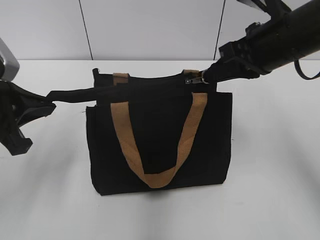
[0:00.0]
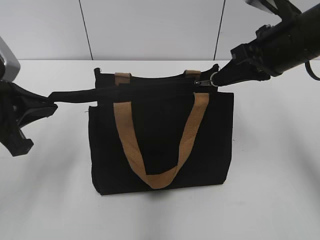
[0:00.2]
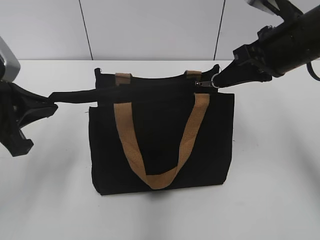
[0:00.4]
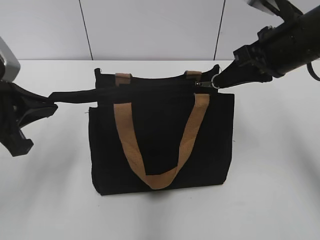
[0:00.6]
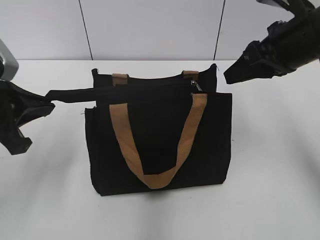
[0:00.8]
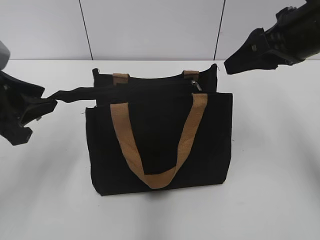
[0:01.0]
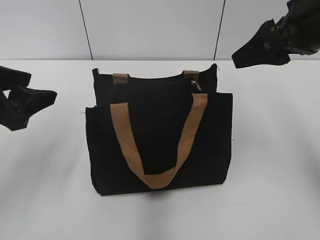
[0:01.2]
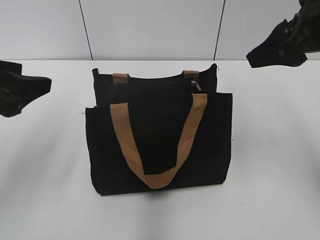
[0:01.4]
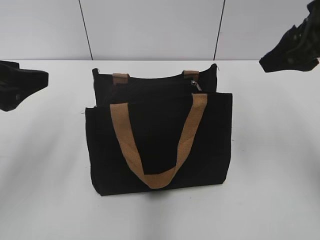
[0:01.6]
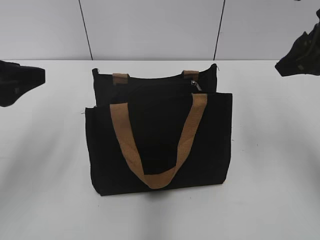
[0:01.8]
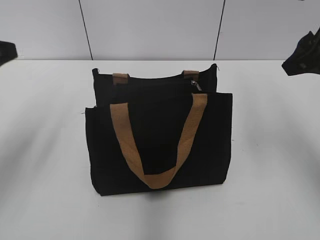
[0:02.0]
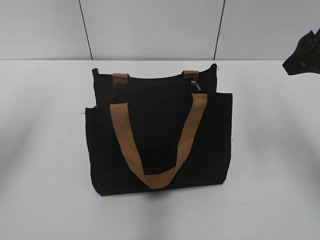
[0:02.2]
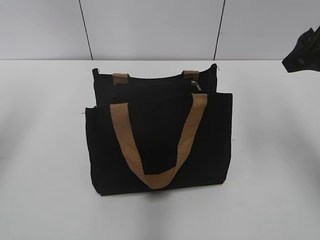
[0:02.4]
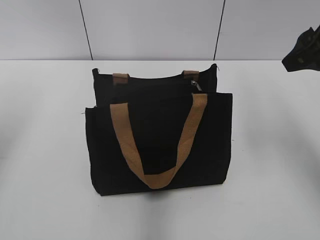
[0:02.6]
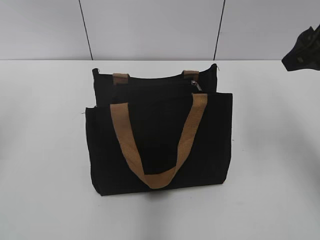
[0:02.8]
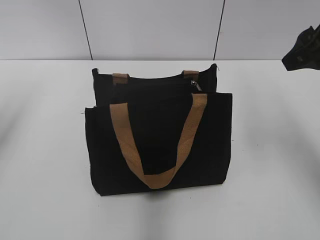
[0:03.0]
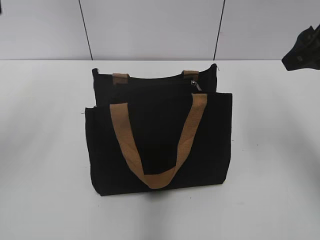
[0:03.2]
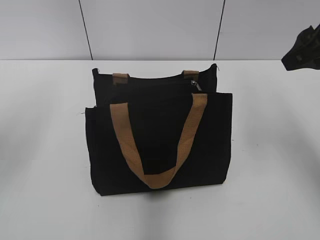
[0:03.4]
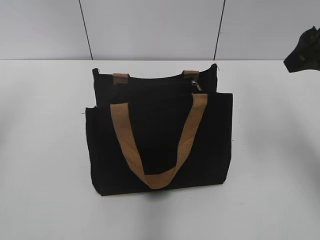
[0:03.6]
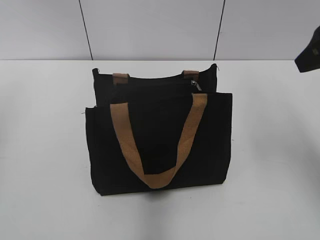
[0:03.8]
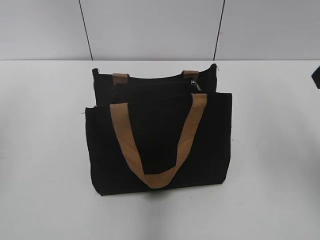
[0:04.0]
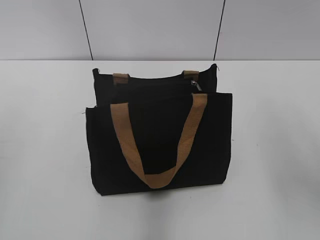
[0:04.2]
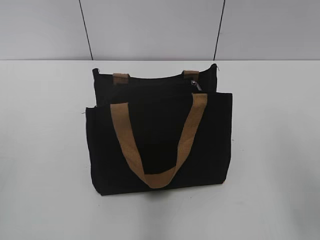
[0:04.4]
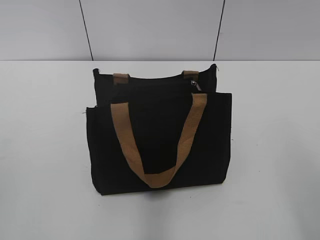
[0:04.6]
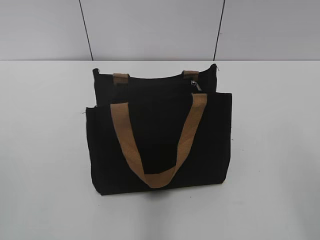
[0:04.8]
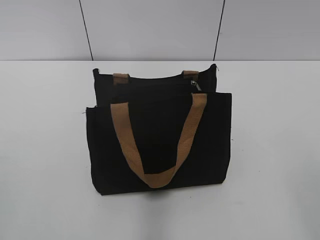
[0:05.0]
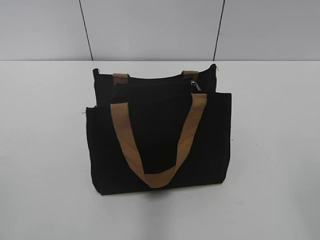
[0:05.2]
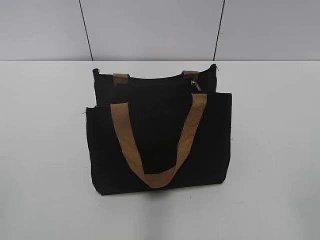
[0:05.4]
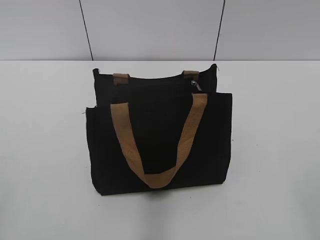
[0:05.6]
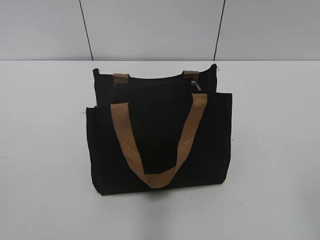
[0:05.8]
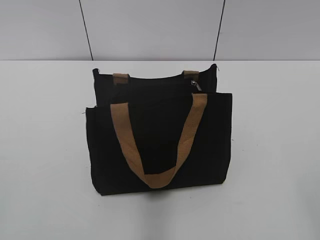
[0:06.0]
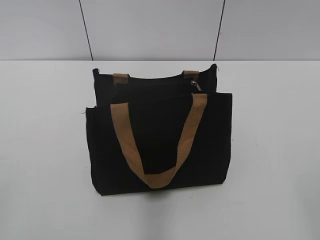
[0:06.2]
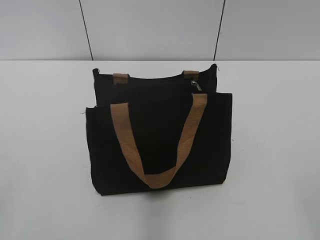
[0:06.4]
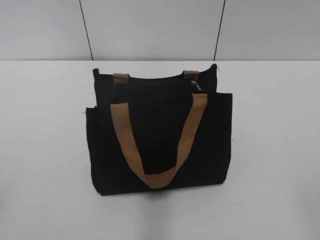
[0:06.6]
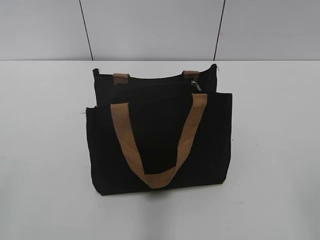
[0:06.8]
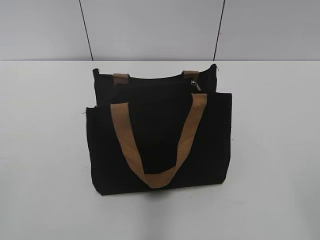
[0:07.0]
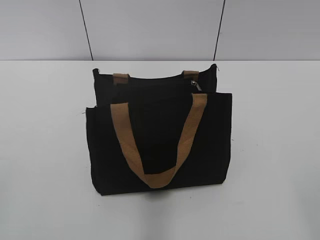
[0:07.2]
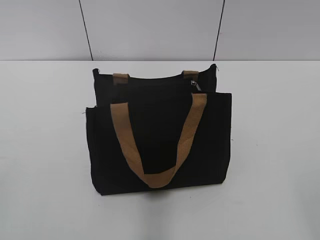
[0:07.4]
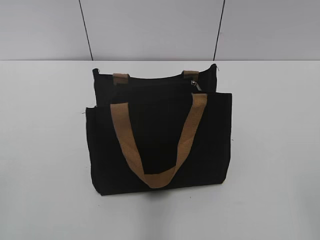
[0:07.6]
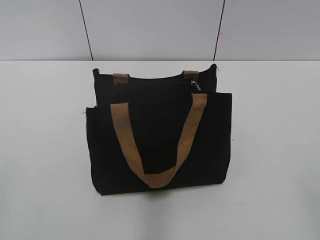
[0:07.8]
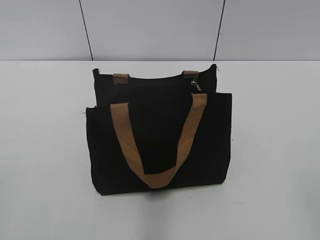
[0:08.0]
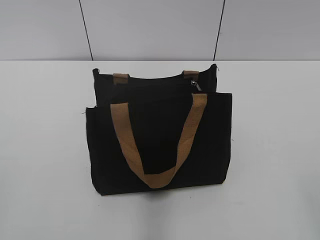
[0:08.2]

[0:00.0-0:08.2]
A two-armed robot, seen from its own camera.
0:00.0 to 0:01.6: The left gripper opens. Meanwhile the right gripper is displaced upward by about 5 cm, and opens up.
0:01.6 to 0:03.2: The left gripper heads upward, covering about 10 cm.
0:03.2 to 0:05.0: Both grippers travel together backward, about 25 cm.
